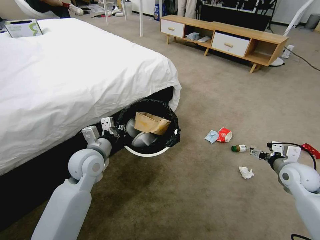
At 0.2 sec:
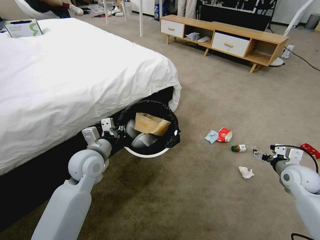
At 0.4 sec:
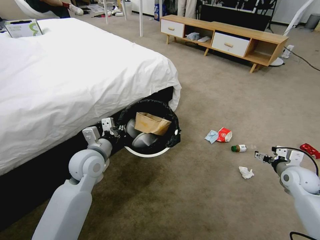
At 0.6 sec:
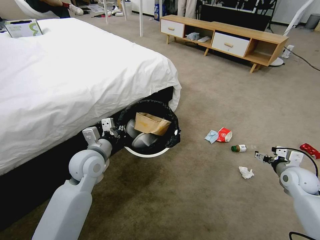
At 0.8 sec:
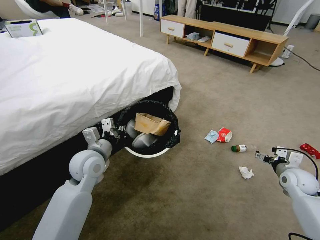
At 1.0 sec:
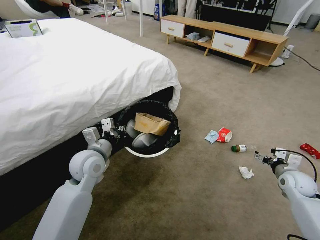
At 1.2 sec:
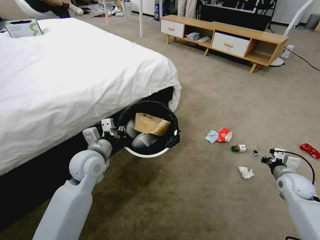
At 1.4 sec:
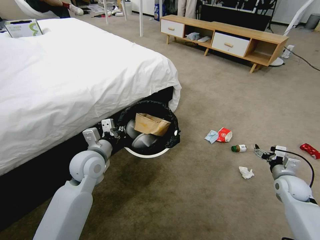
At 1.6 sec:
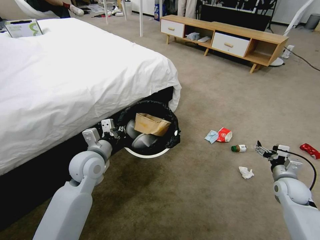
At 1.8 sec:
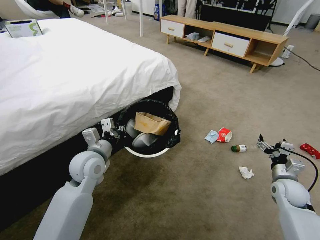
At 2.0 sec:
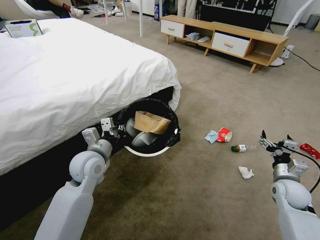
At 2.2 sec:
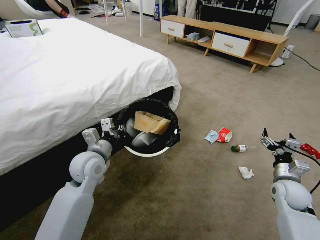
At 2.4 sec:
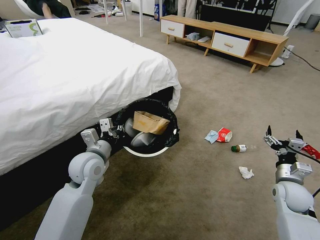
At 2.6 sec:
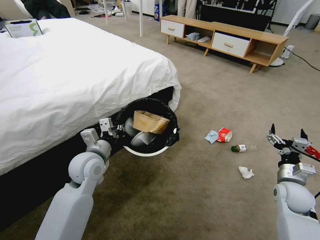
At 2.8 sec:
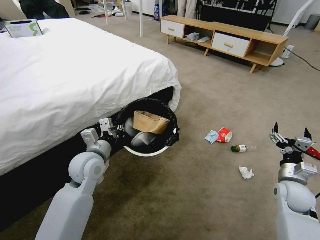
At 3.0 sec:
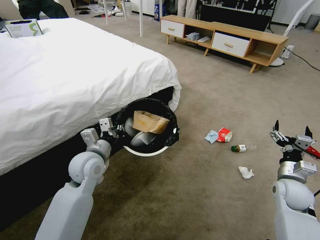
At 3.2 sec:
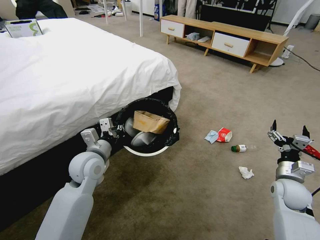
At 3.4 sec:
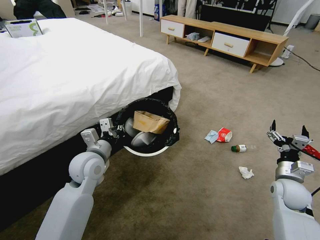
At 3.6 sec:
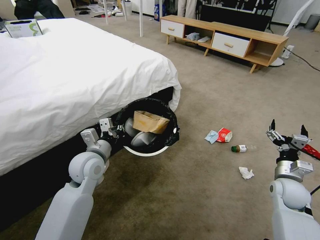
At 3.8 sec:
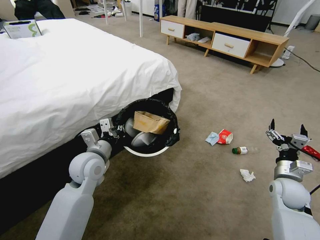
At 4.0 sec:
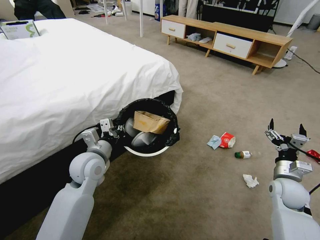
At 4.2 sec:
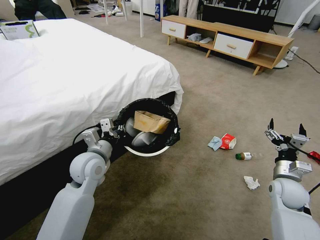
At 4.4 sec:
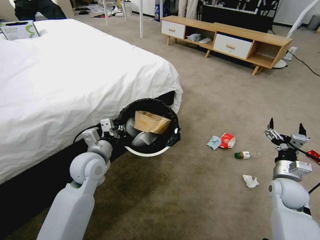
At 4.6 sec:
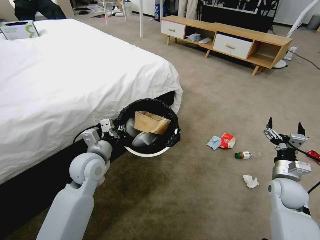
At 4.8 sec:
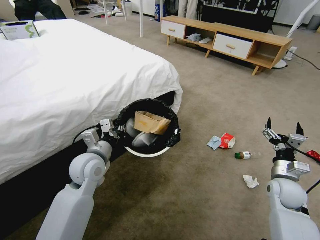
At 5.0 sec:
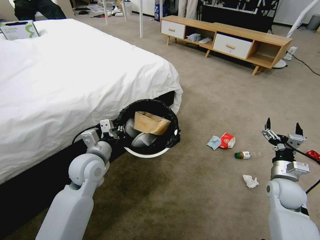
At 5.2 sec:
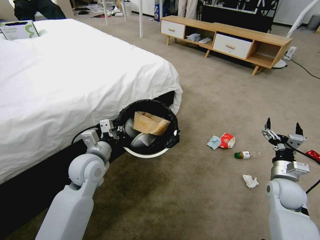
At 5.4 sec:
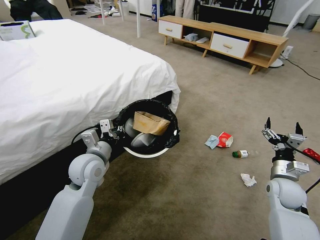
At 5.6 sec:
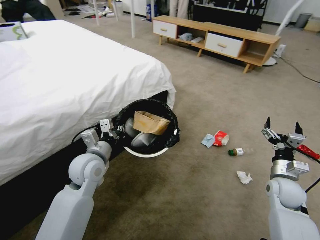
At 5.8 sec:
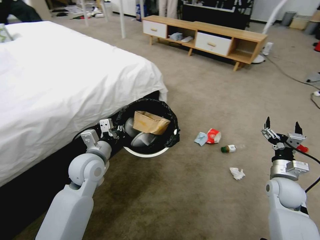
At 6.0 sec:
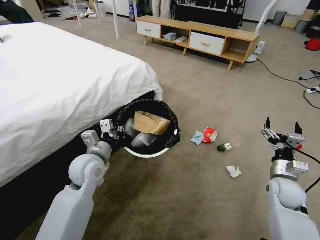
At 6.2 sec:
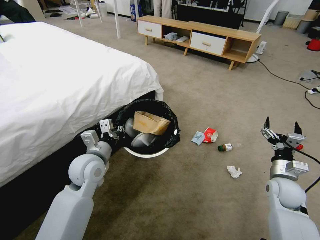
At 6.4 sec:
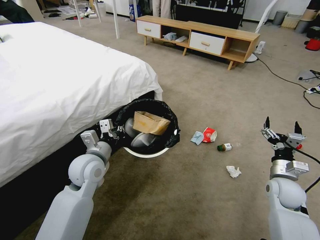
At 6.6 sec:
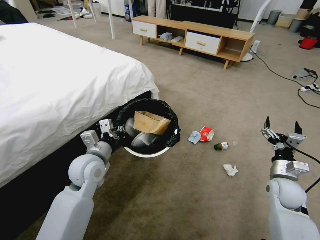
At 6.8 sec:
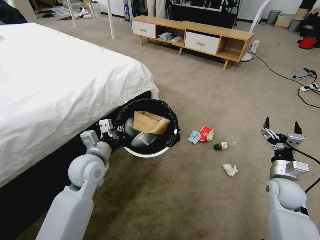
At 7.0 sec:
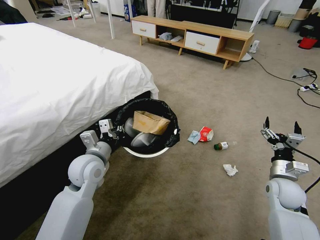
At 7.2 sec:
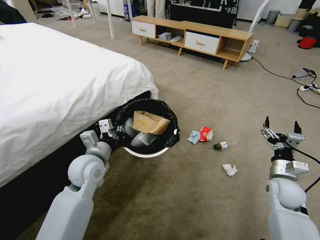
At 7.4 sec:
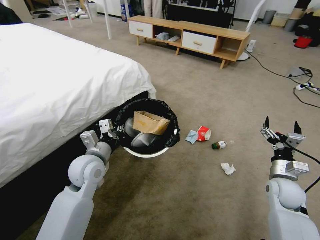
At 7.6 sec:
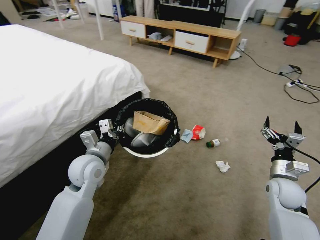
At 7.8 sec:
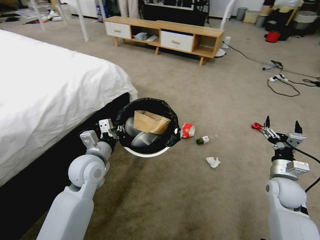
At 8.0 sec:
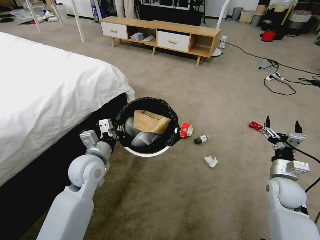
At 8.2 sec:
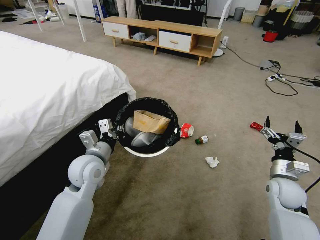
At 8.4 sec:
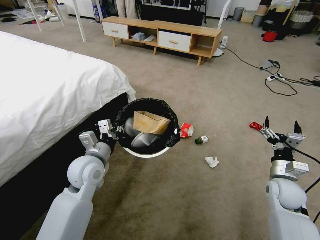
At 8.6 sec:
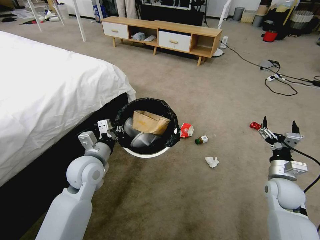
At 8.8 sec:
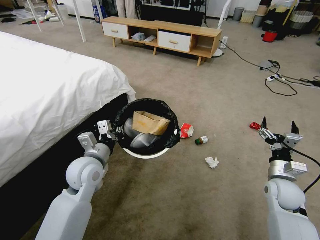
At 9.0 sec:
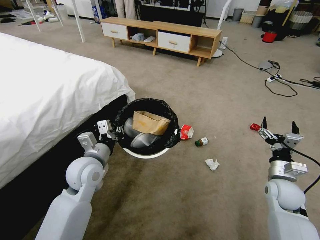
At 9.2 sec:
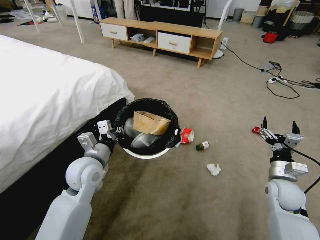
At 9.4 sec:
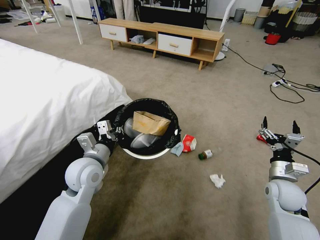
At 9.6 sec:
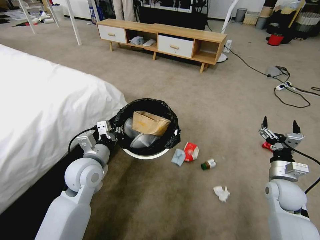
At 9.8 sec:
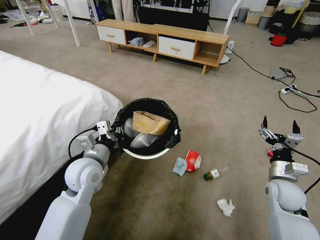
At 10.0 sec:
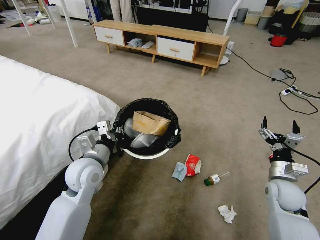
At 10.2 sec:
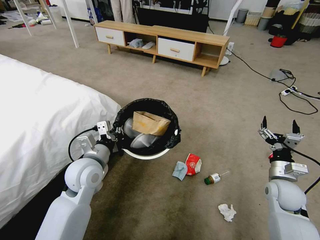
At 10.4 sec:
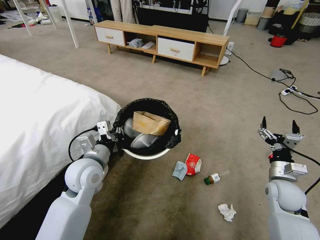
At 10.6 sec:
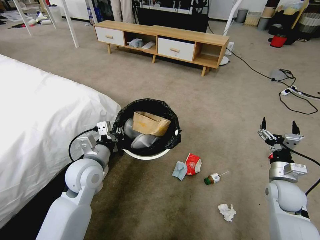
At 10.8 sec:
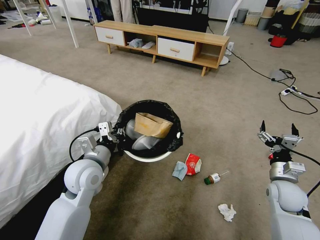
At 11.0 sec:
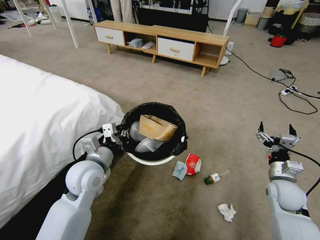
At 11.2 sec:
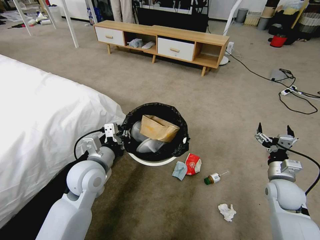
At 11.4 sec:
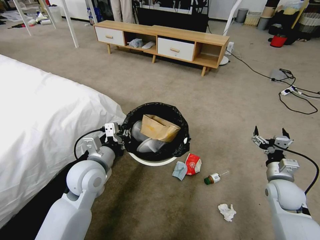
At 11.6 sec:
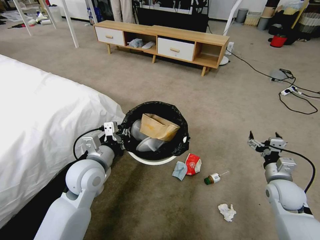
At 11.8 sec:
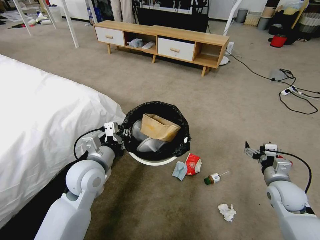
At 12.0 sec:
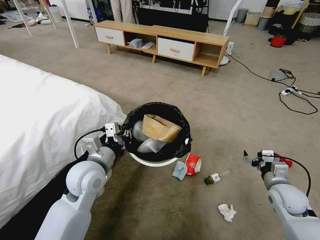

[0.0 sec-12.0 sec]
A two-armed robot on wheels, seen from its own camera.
Task of the whole recording: Pick up the trash bin and place the garbage on the floor into it.
0.0 sec to 1.6 sec: The right gripper goes about 10 cm downward.
1.6 sec to 3.0 sec: The right gripper ends up some 5 cm from where it was.
3.0 sec to 4.4 sec: Both grippers stay put.

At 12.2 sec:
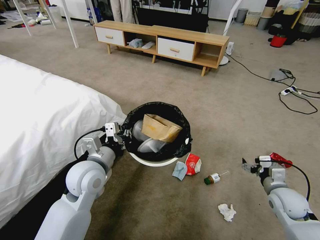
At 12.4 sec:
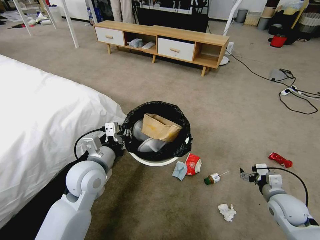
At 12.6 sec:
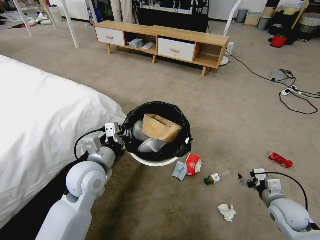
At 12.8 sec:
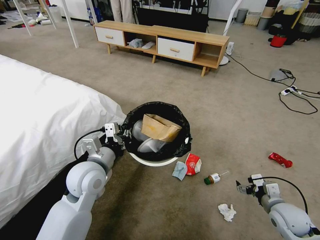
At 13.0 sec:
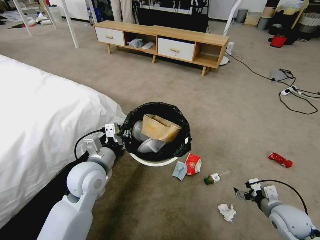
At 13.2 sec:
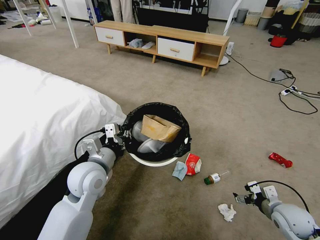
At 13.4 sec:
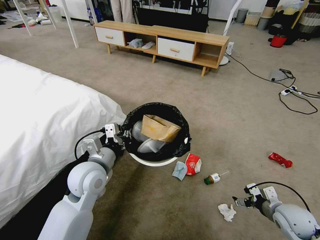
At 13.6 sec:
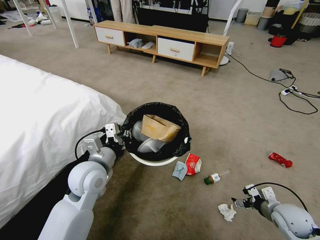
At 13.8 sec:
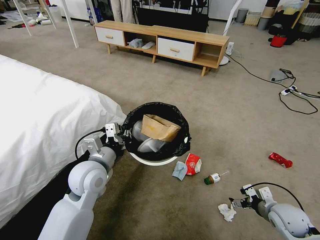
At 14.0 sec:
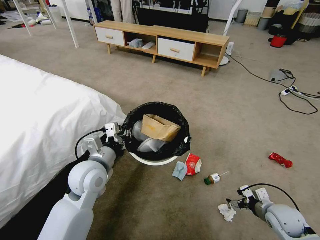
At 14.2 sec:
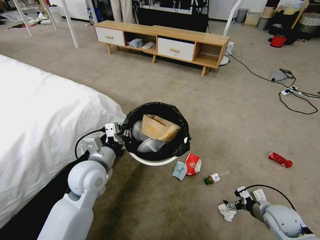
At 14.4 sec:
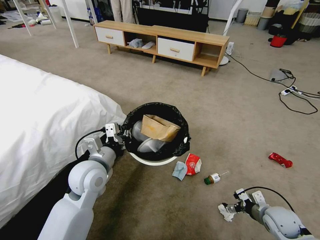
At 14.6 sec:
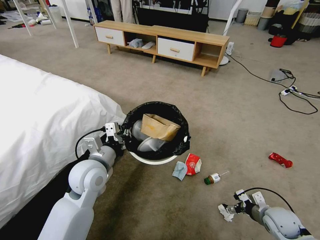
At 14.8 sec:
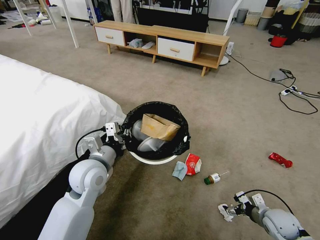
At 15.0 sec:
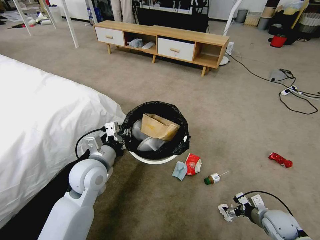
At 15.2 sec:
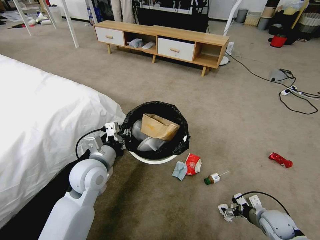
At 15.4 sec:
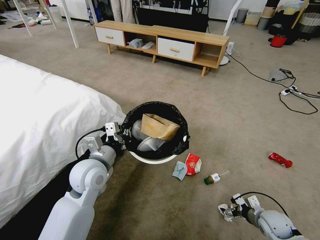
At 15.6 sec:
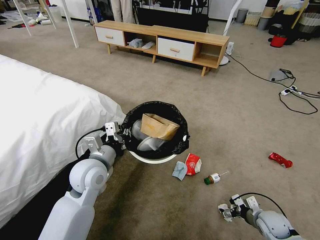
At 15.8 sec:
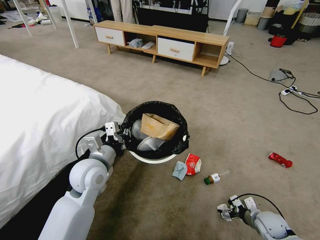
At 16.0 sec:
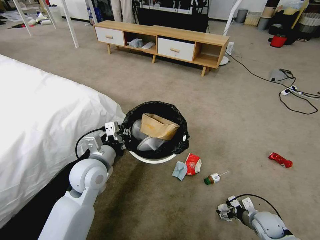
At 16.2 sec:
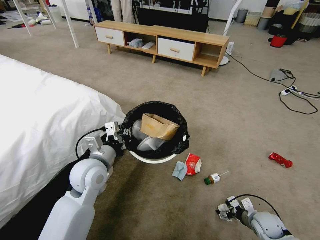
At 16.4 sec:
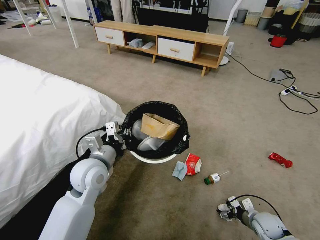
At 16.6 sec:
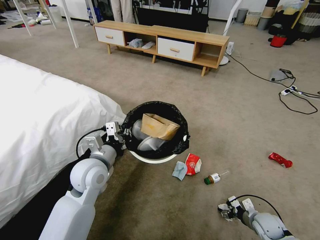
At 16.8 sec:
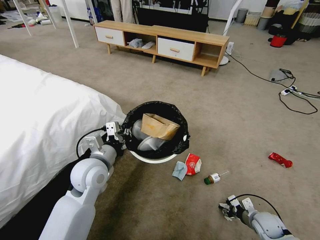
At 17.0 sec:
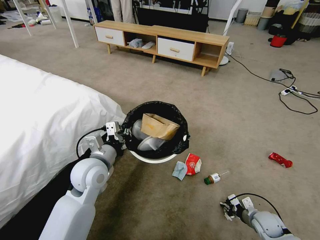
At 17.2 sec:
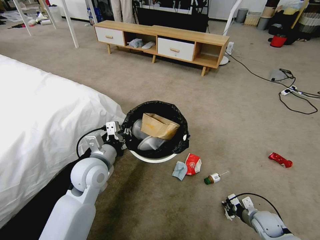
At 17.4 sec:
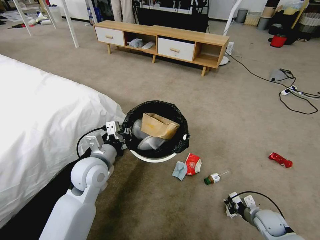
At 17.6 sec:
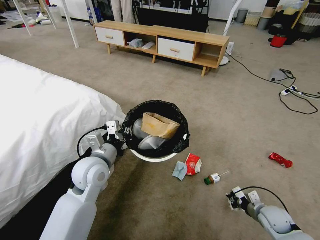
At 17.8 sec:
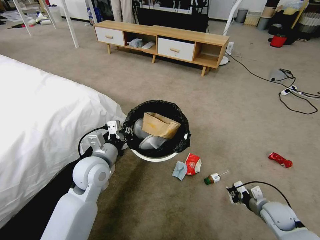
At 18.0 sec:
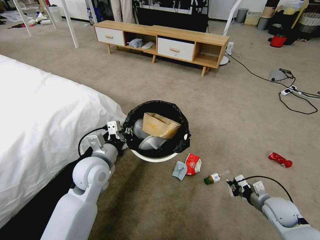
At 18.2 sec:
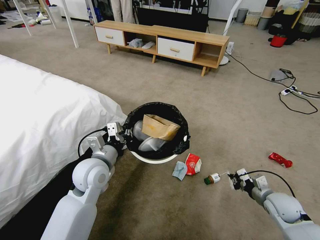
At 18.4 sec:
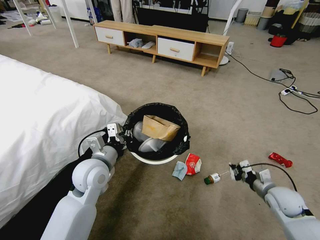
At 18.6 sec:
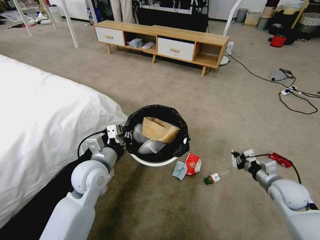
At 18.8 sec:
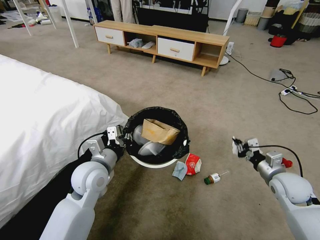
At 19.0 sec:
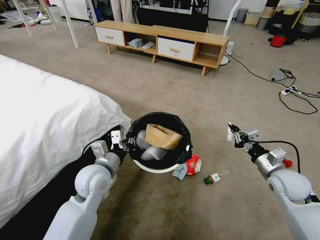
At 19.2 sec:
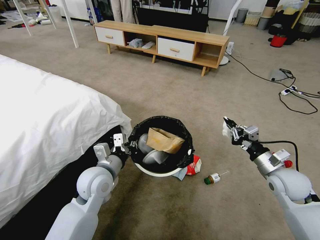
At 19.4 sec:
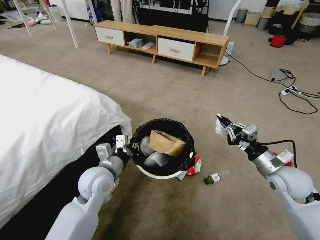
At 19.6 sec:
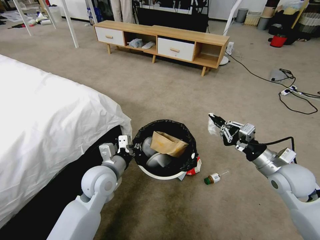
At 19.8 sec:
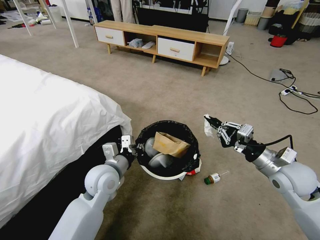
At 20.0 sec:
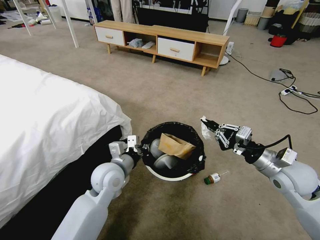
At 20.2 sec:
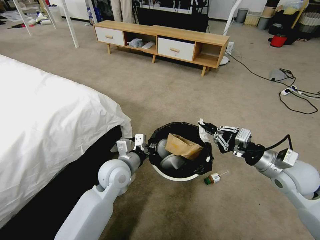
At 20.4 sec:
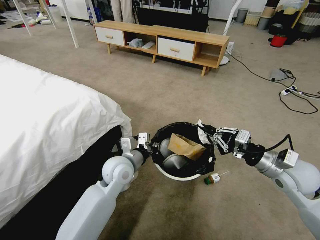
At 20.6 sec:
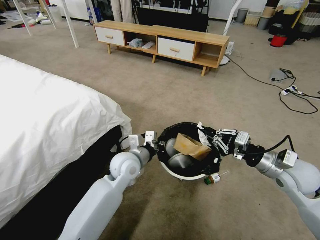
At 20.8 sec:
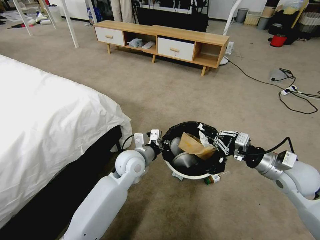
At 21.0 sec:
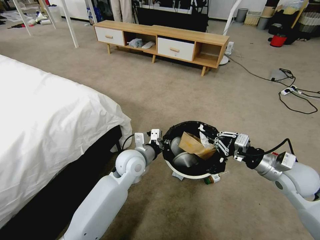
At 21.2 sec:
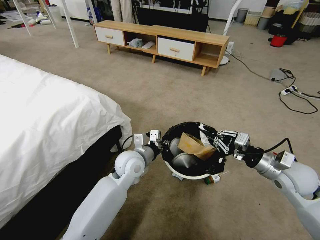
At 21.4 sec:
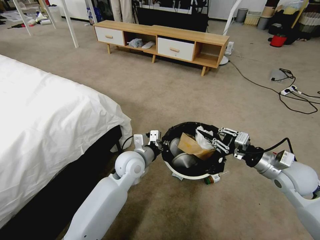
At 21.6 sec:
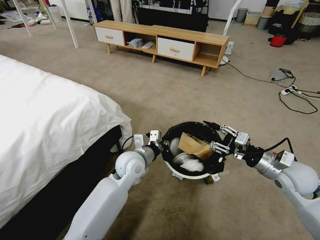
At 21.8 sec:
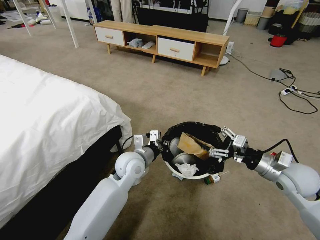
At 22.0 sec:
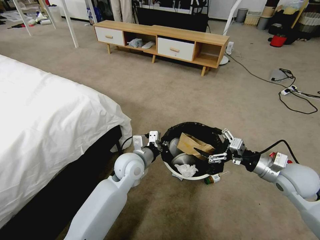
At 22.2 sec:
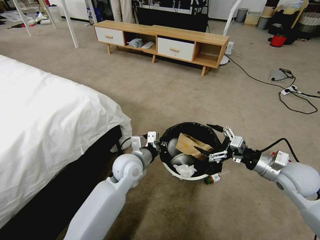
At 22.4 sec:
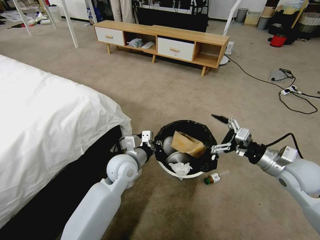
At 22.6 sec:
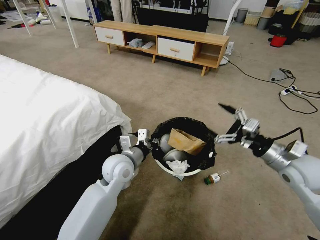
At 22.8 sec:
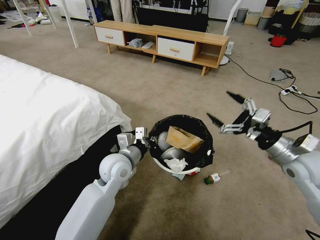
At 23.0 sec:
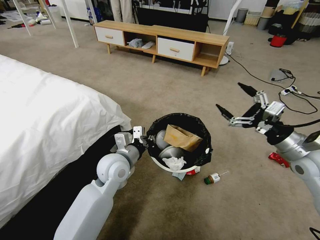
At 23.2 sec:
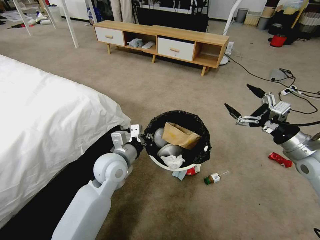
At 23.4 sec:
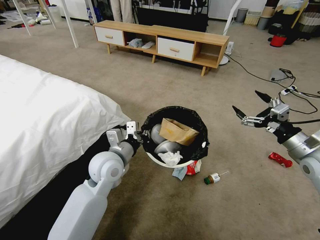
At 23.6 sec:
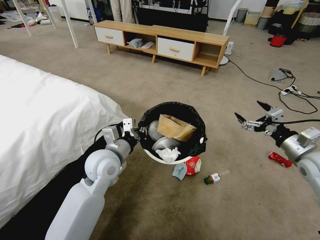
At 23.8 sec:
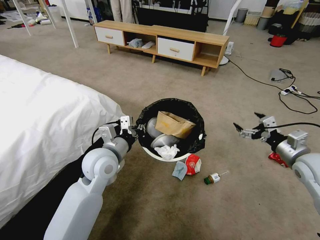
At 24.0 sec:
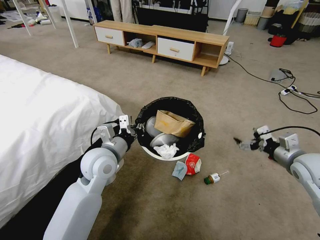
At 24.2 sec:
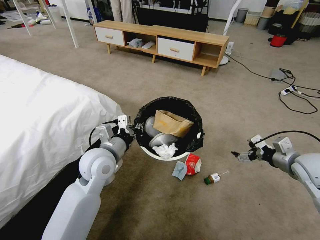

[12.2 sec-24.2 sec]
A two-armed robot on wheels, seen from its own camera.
Task of the whole recording: Pick up the trash bin and place the garbage on the floor into it.
13.8 sec to 15.2 sec: The right gripper travels downward by about 5 cm.
15.2 sec to 16.6 sec: The grippers stay close to where they were, moving slightly.
16.6 sec to 18.2 sec: The right gripper heads upward, covering about 10 cm, and closes.
18.2 sec to 19.8 sec: The right gripper is displaced upward by about 15 cm.
19.8 sec to 21.2 sec: The left gripper travels to the right and forward by approximately 10 cm.
21.2 sec to 22.6 sec: The right gripper opens up.
22.6 sec to 24.2 sec: The right gripper travels to the right by roughly 5 cm. The left gripper goes some 5 cm upward.
